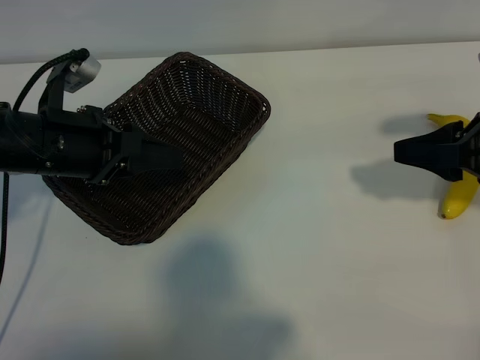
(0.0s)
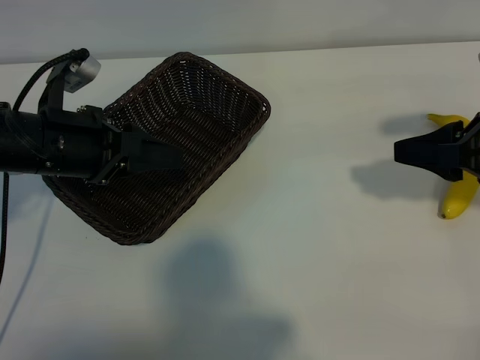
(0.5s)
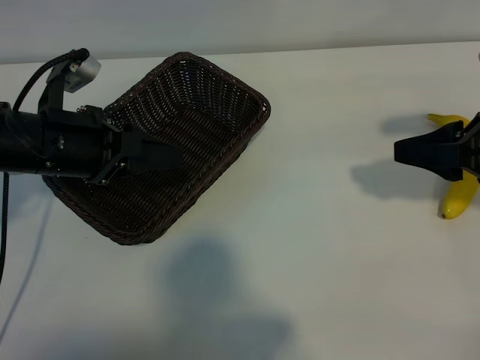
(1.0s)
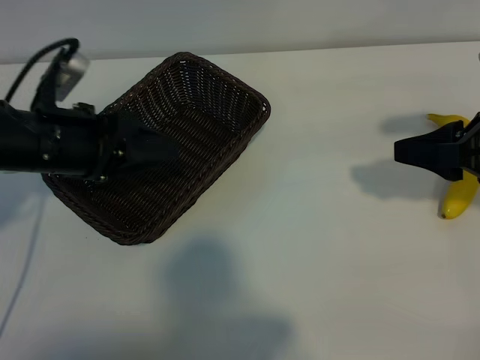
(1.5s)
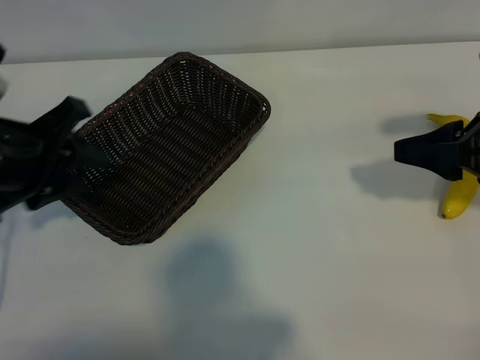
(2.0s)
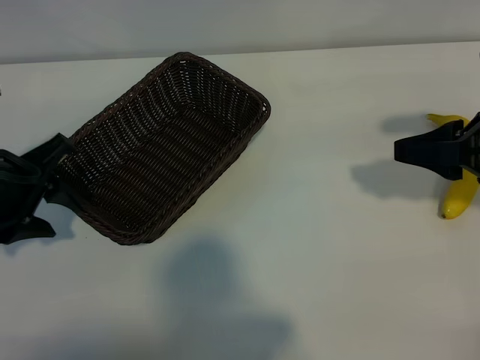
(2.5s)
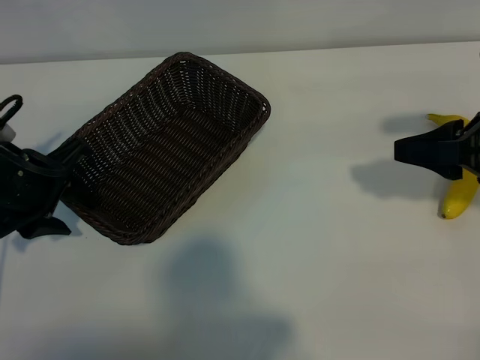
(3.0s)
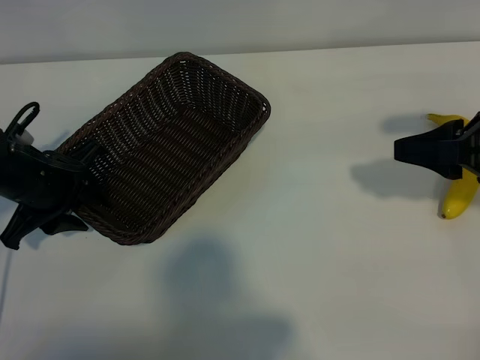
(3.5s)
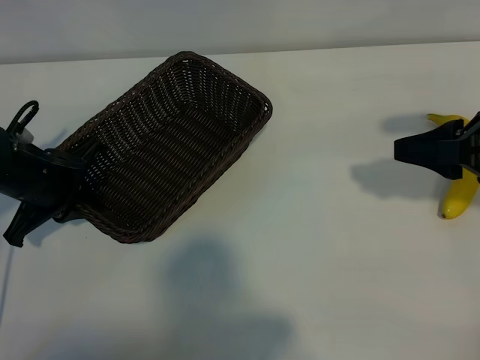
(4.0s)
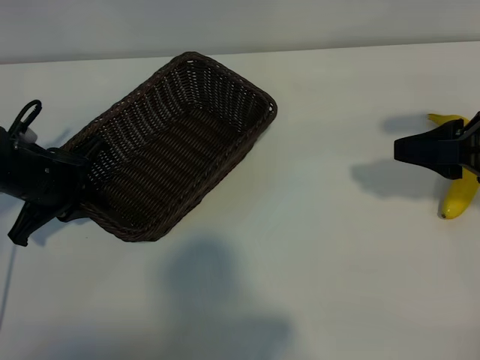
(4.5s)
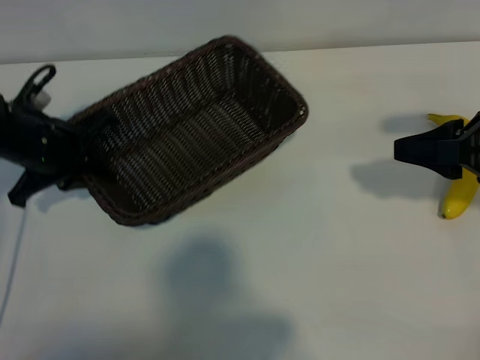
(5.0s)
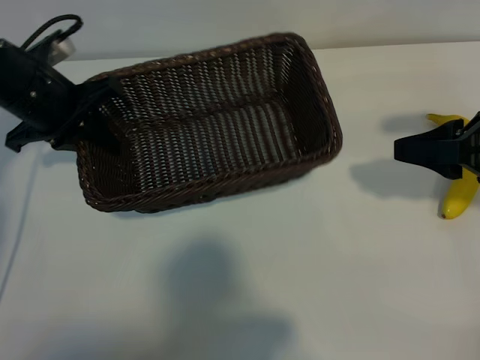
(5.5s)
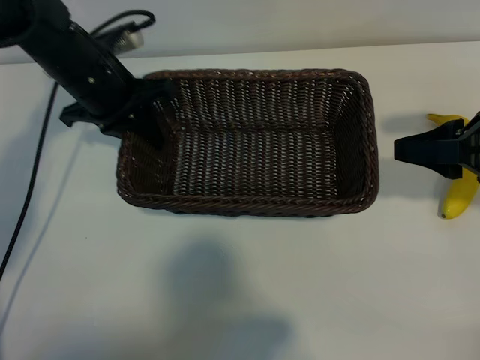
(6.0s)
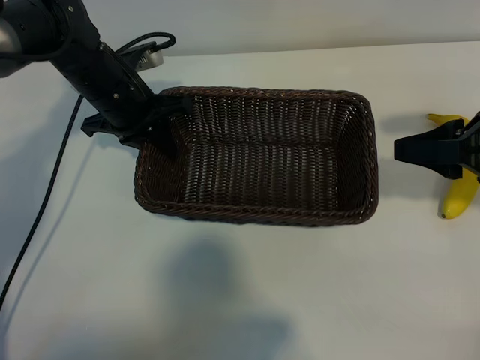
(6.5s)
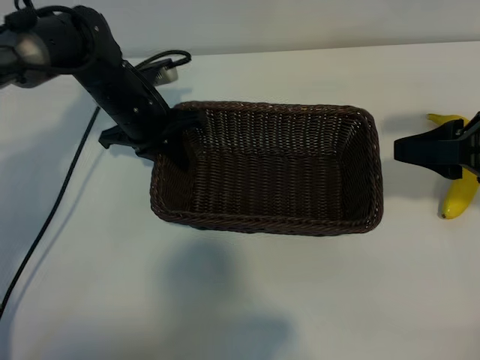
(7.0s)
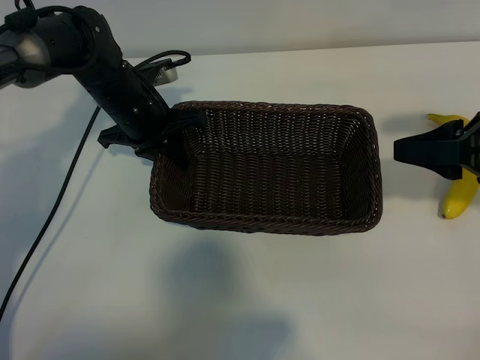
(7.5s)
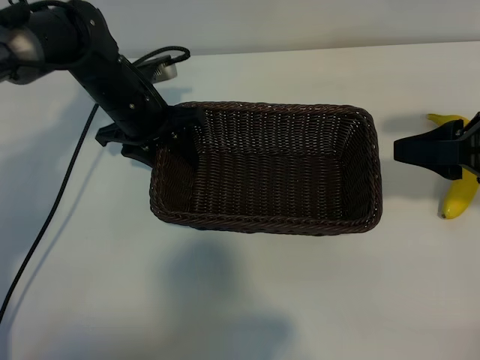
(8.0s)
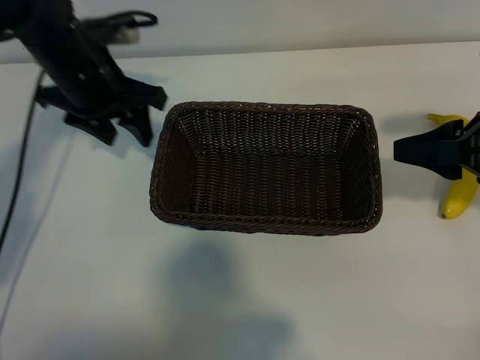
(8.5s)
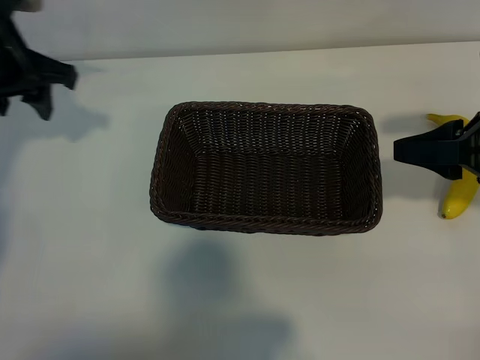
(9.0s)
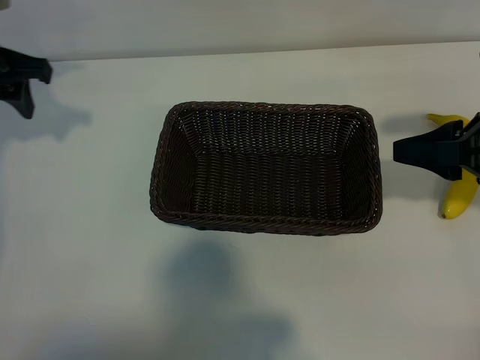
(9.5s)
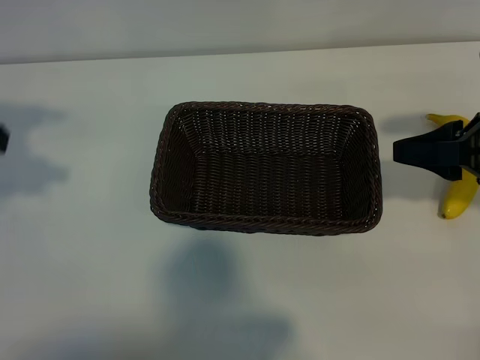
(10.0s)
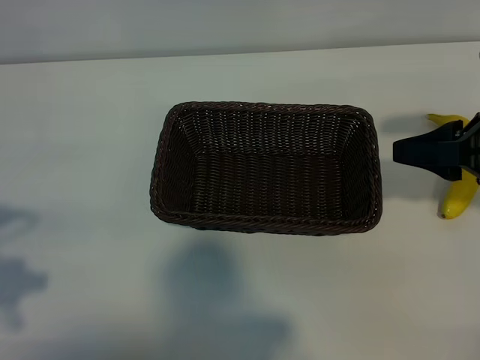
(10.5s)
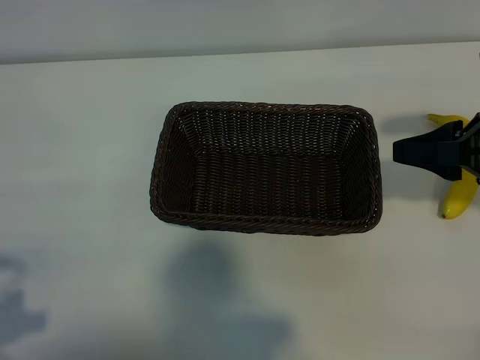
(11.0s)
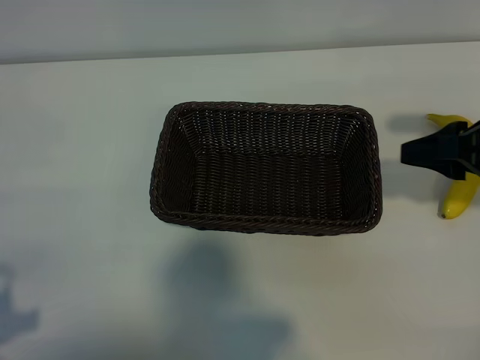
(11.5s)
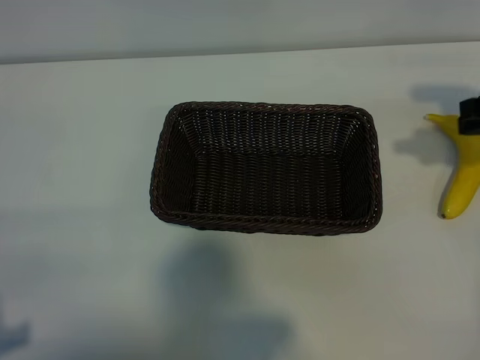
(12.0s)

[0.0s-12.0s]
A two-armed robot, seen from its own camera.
Task of the whole recording: pick up the banana and put it into the basket.
Step, 1.5s to 4.0s: Grasp the basket with the left gripper.
Step, 4.5s to 8.0s: Place the basket in the center of the table with the left gripper.

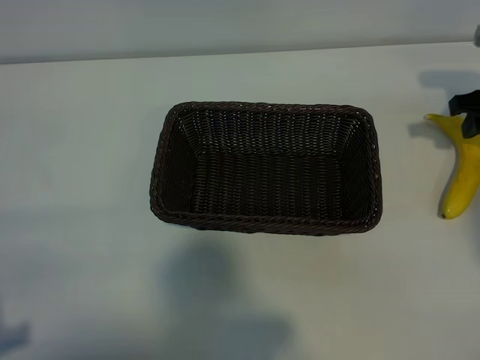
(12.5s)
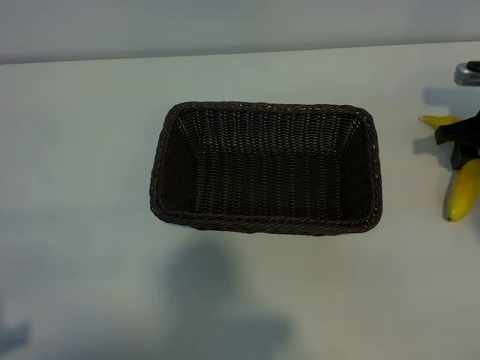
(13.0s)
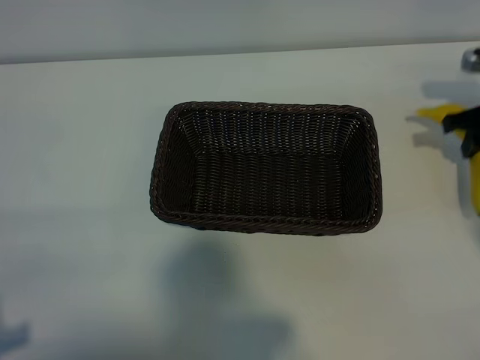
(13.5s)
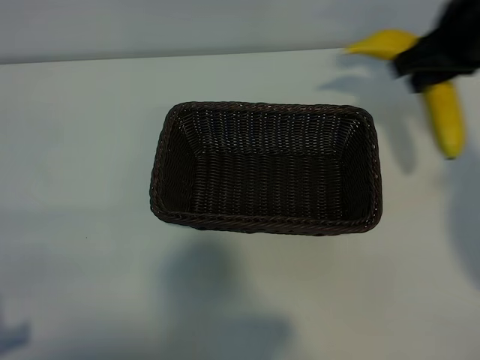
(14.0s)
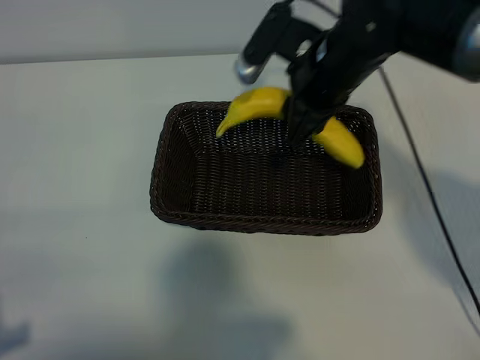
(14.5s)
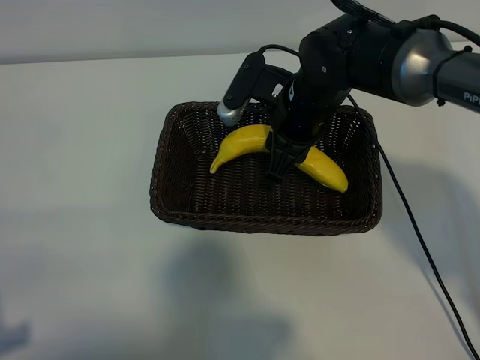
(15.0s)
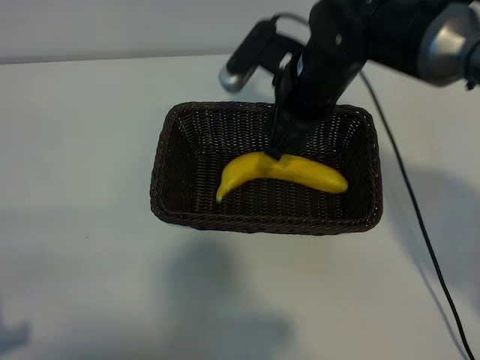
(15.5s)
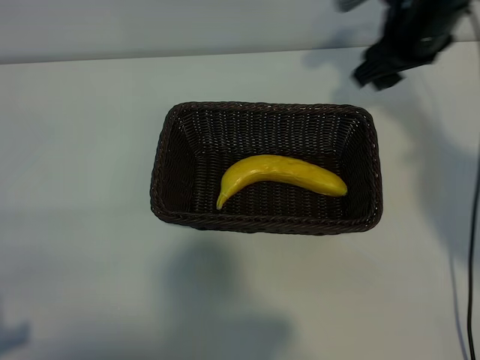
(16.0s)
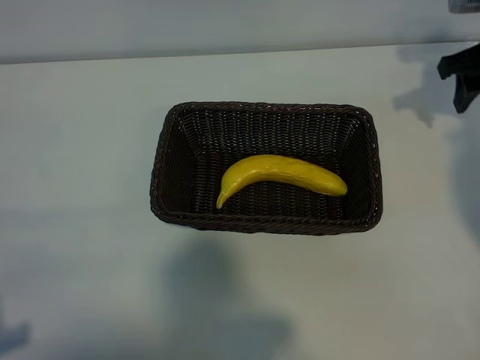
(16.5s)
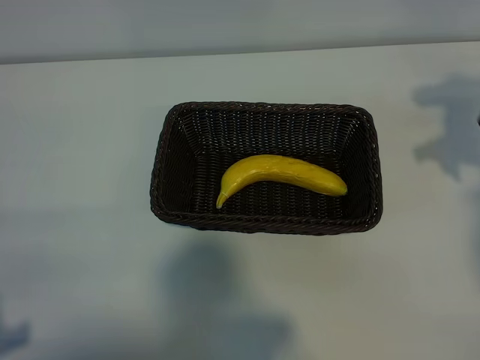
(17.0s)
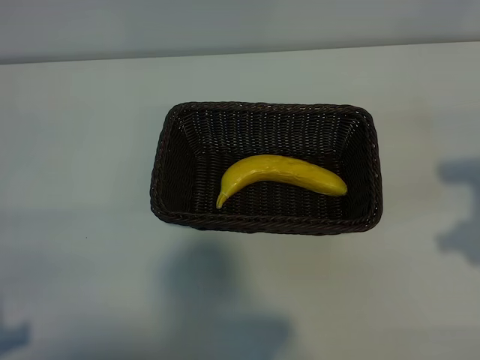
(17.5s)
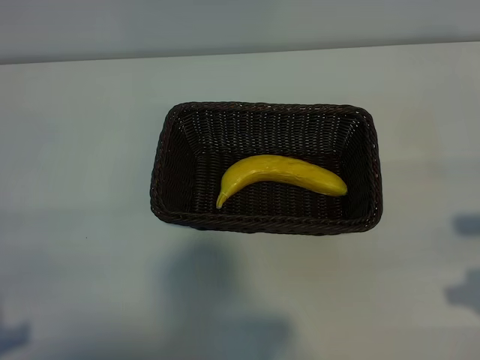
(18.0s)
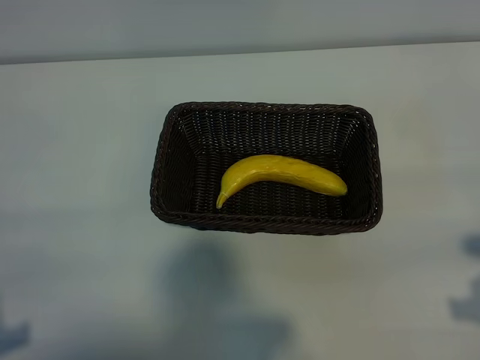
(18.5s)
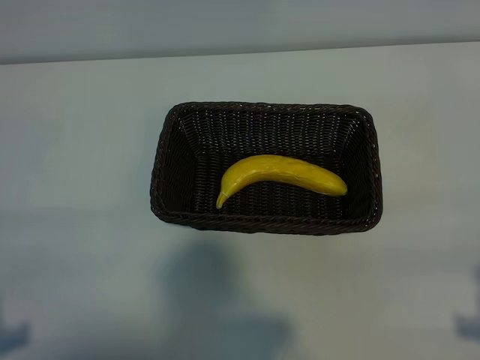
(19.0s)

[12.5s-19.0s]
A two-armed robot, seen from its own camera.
Task of the whole recording: pick up the banana and put it into the basket.
Step, 14.0s to 15.5s: Place the banana in the basket with right gripper.
